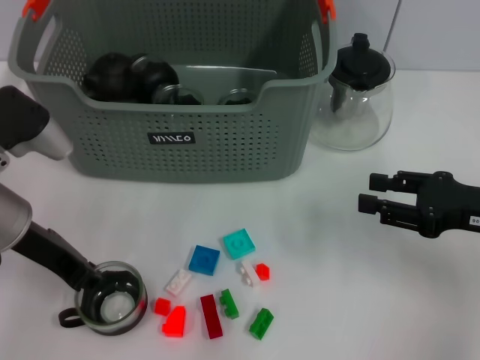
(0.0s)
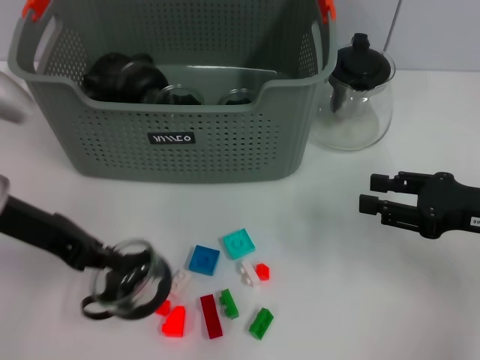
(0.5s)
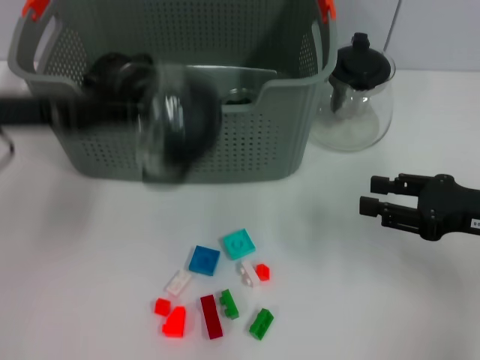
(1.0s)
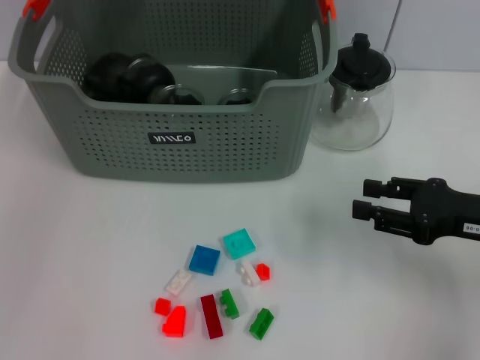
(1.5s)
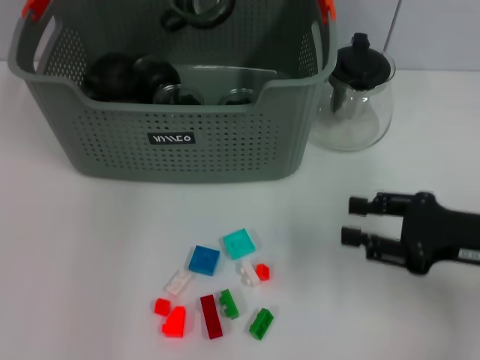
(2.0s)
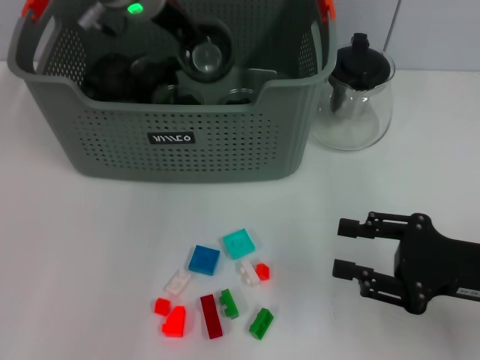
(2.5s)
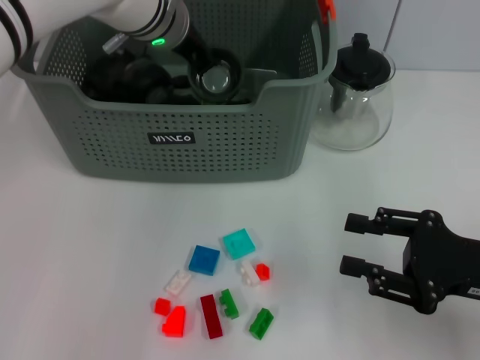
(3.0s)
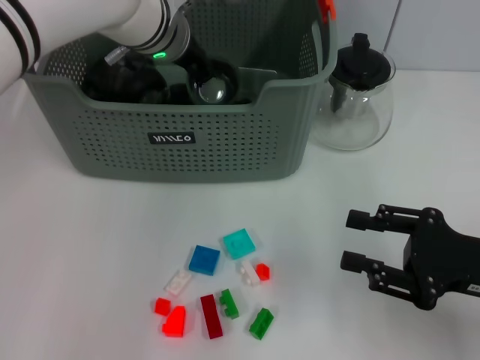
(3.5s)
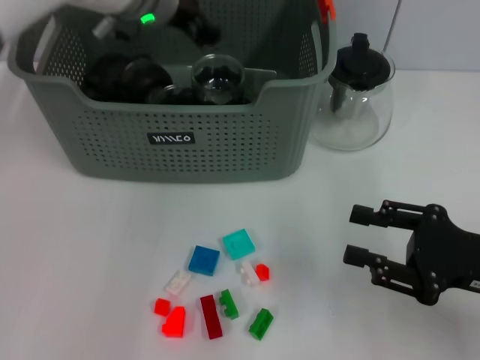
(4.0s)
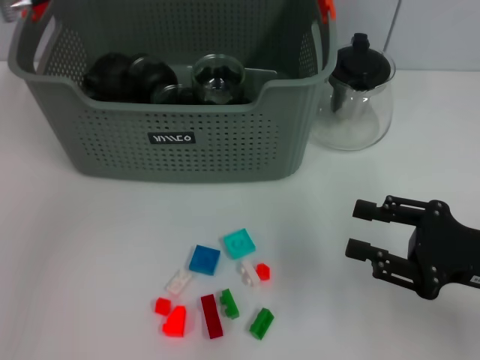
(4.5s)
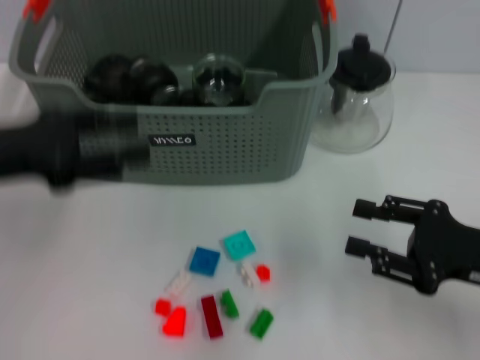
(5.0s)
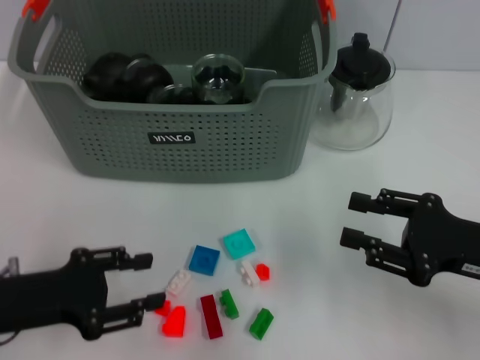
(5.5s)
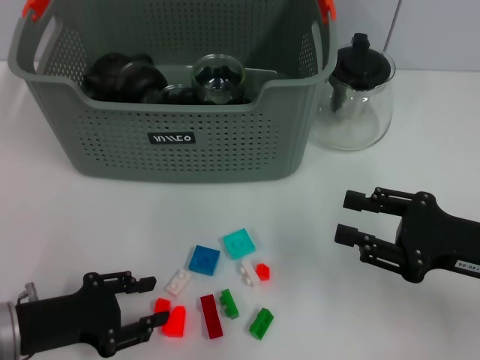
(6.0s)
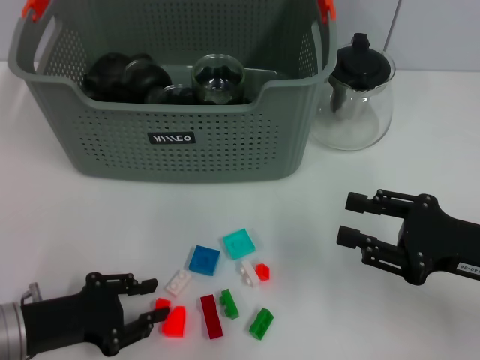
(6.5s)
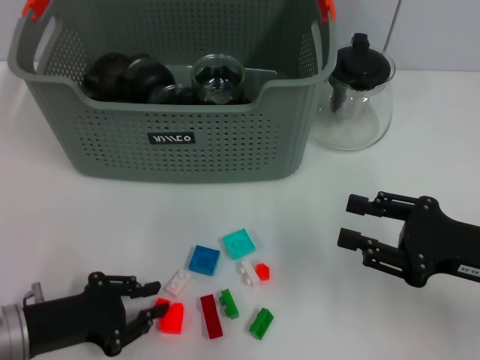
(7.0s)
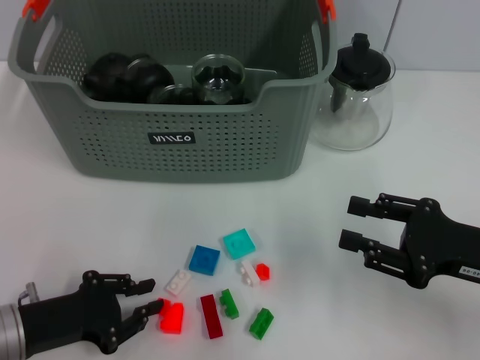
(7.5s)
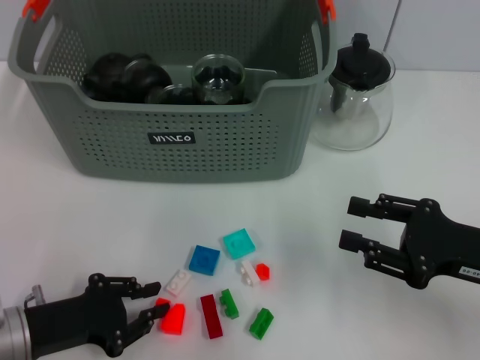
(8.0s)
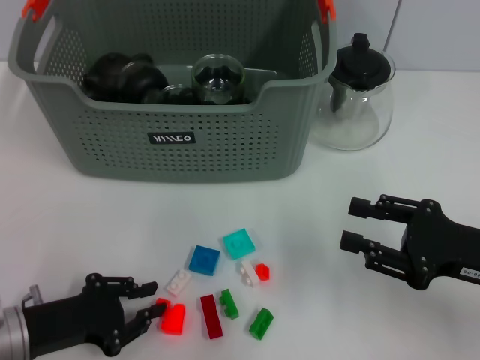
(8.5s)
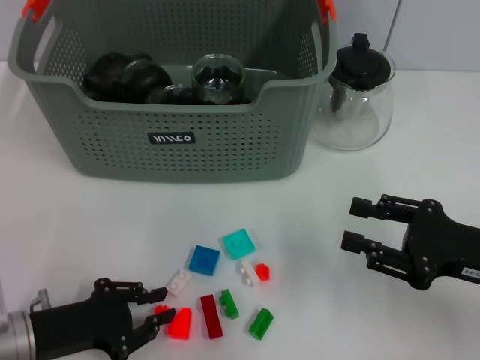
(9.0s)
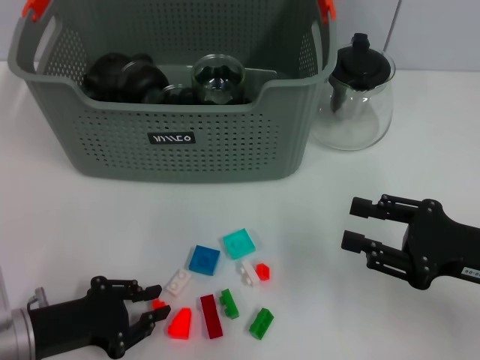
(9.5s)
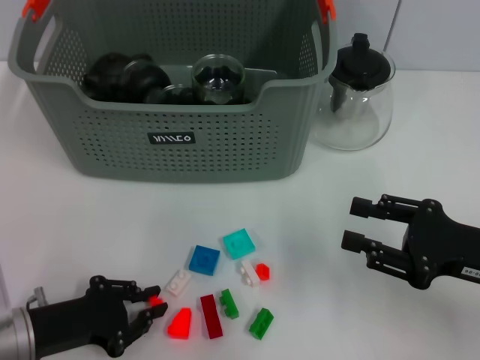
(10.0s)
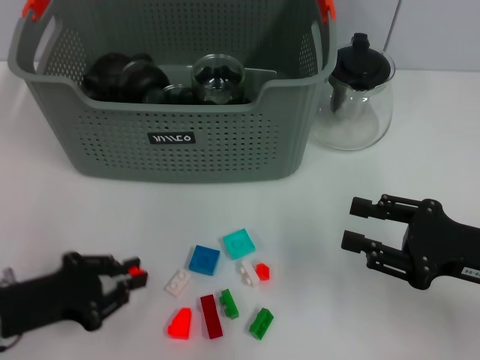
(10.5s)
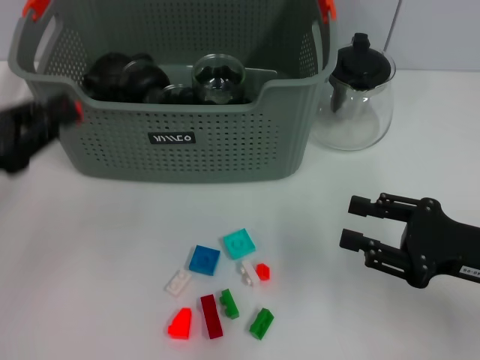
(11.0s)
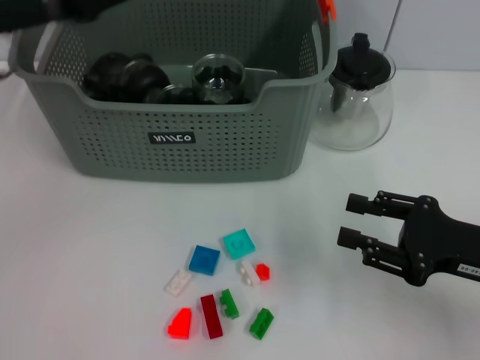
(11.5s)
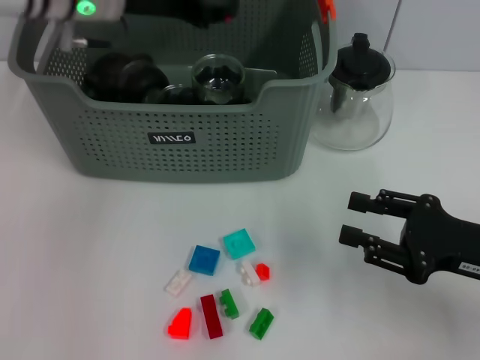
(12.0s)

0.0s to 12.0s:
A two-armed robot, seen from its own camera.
Task of the whole recording: pick up the teacup on the table and place it into the storage bin, pick up the block on the table and place it into the storage bin.
Step, 0.5s to 4.0s: Place the cup in the storage box with left gripper.
Step, 4.5s to 9.5s: Grasp the orange block with left gripper.
0.0s to 2.0s: The left gripper heads forward, upward and to the right, covering about 25 cm, and closes.
2.0s to 4.0s: The left gripper shifts roughly 10 cm downward and to the right, and opens up.
4.0s to 6.0s: The left gripper shifts roughly 35 cm backward, downward and to the left.
6.0s to 8.0s: The left gripper closes its fingers.
8.0s to 10.0s: Neither gripper changes place.
10.0s to 12.0s: The left gripper is displaced forward and upward by roughly 30 cm.

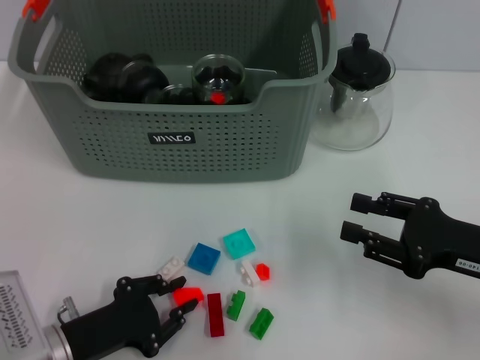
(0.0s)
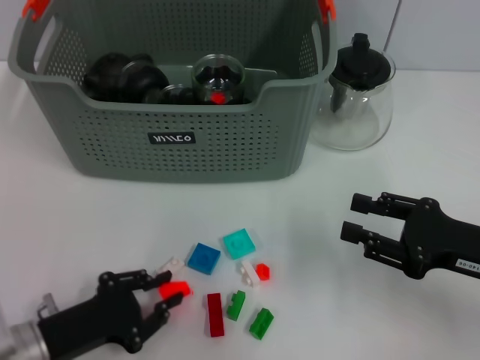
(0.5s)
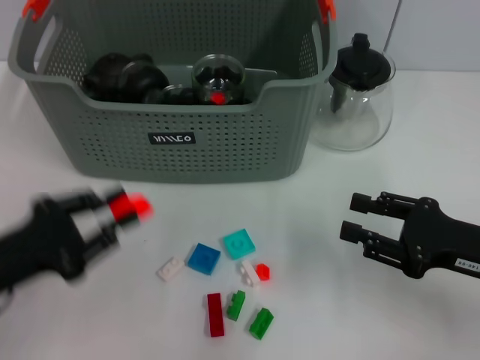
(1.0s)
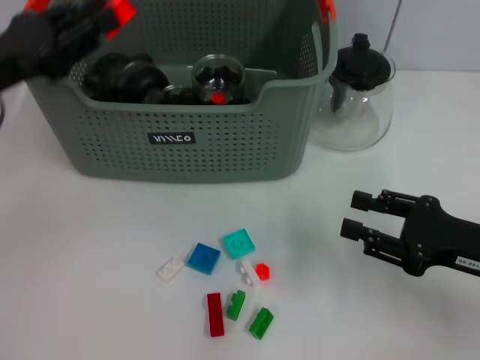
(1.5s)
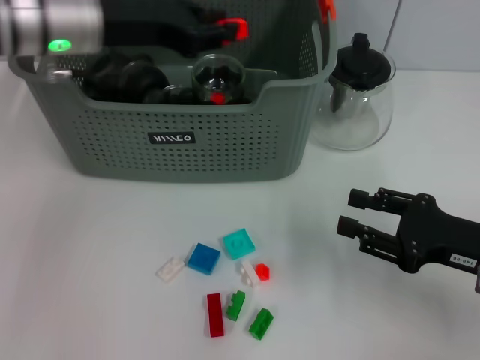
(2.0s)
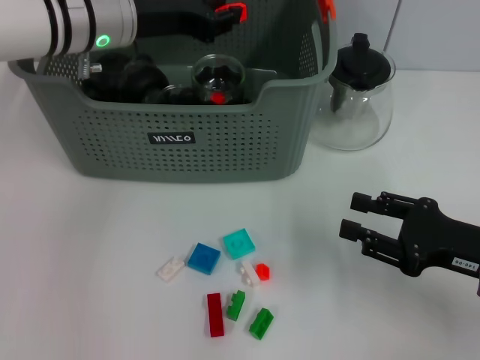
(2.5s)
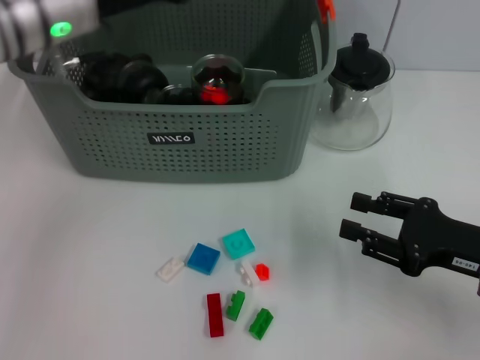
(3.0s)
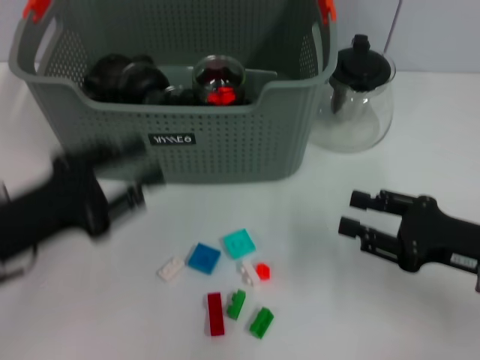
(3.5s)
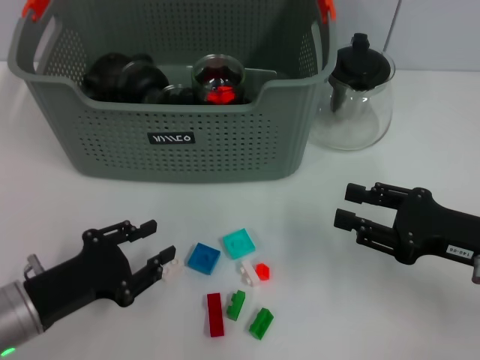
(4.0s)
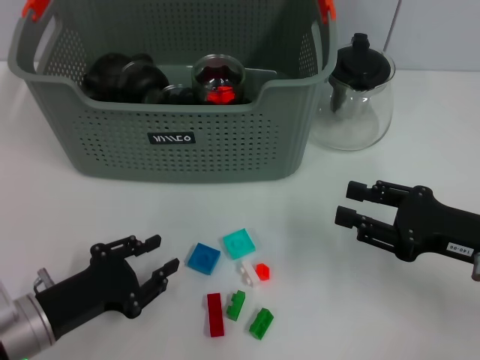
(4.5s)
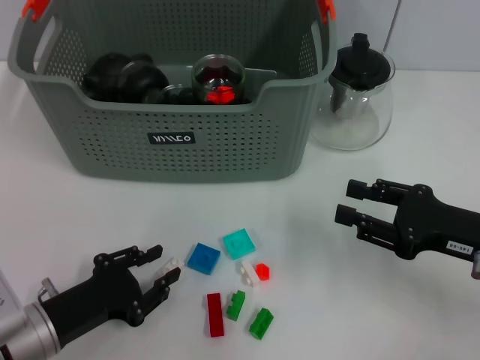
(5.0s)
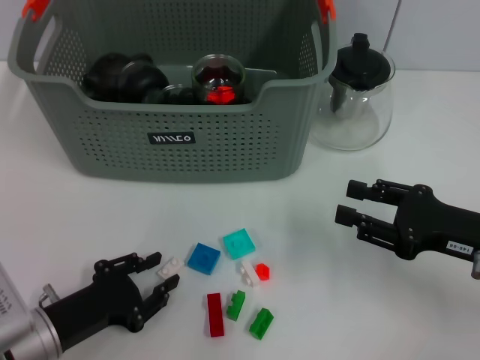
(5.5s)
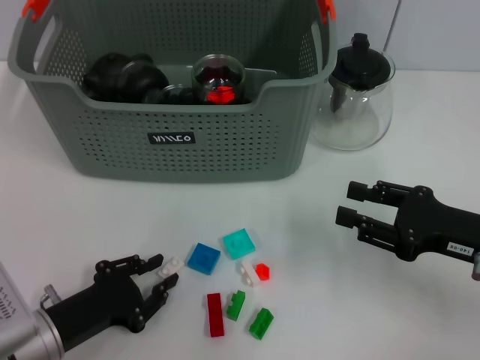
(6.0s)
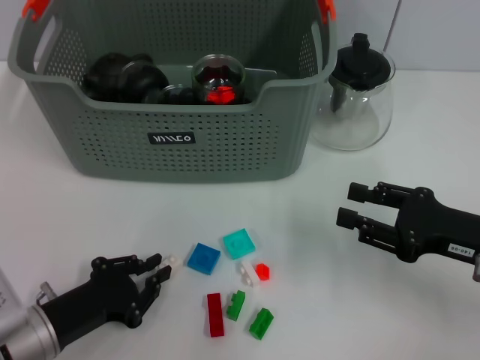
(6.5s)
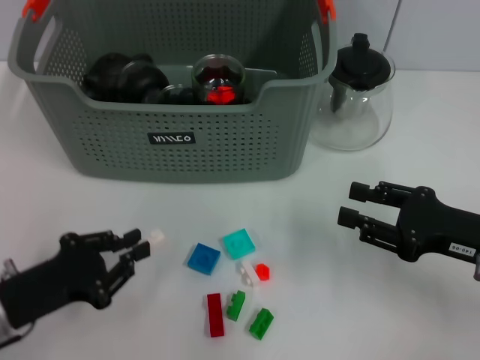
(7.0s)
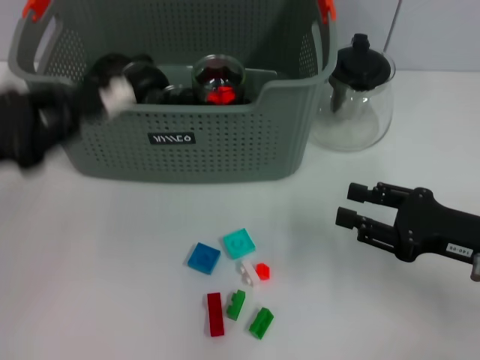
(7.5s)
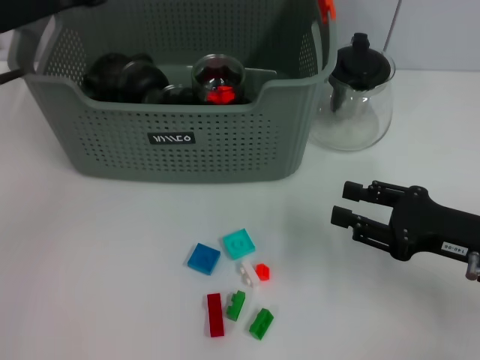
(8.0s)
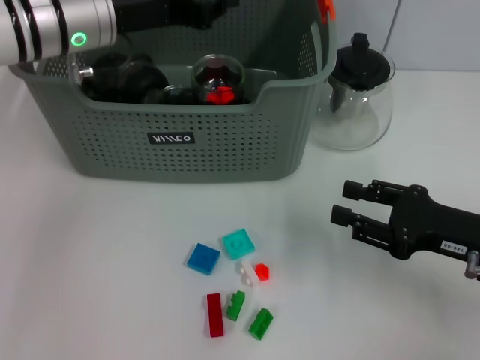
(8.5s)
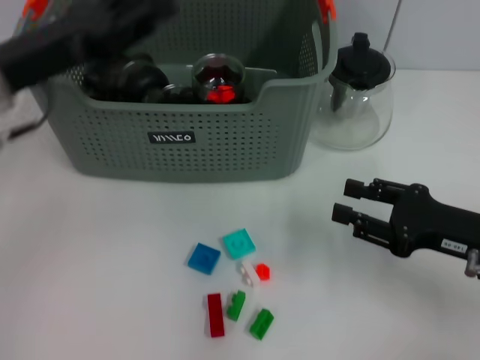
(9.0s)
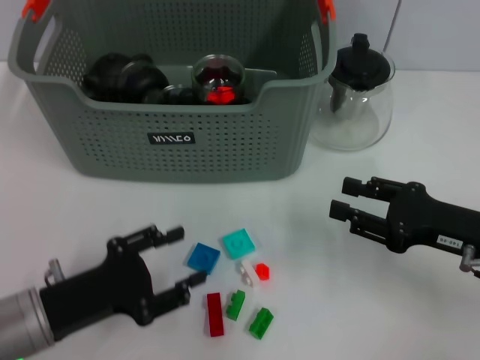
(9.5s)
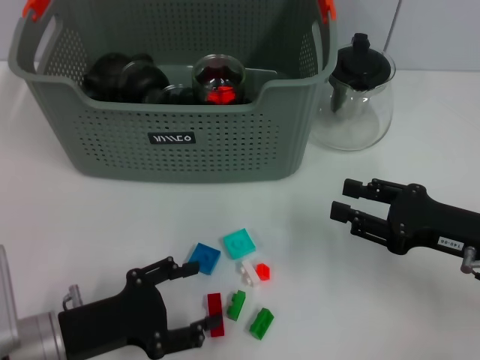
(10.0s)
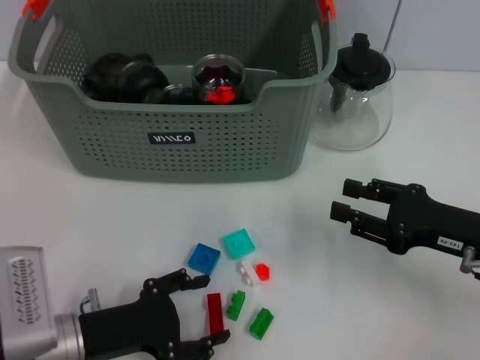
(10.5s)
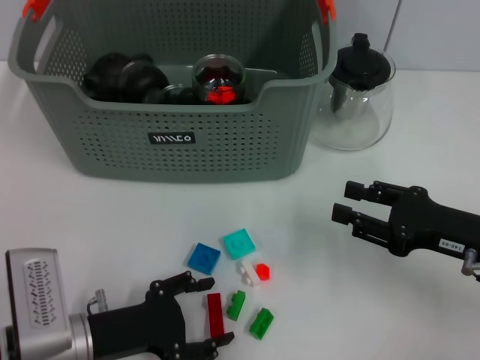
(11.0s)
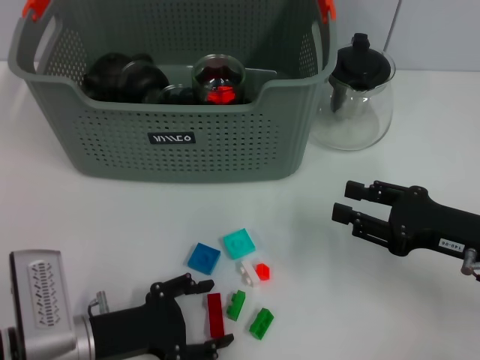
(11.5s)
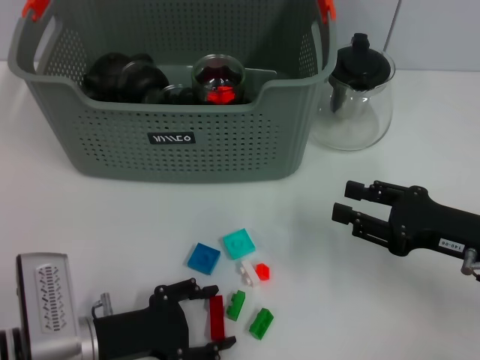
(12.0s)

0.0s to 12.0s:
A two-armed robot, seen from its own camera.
Task of the whole recording: pick up the teacup on the table and place it into the storage bin, pick up the block on the table and place it into the storage bin.
Step, 0.5s to 3.0s: Place the orange block in the storage box with left gripper.
Step, 3.5s to 6.0s: Grasp the white block with left gripper.
Step, 6.5s to 9.0s: Place the white block in the storage box with left gripper.
0.0s to 2.0s: The left gripper heads forward and upward, covering about 30 cm.
2.0s to 4.0s: The left gripper travels backward and downward by approximately 30 cm.
4.0s to 6.0s: The grippers stay close to where they were, moving slightly.
6.0s to 8.0s: The left gripper heads upward and forward, covering roughly 30 cm.
8.0s to 10.0s: The left gripper travels downward and backward by approximately 25 cm, and opens up.
10.0s to 12.0s: The grippers move only a little.

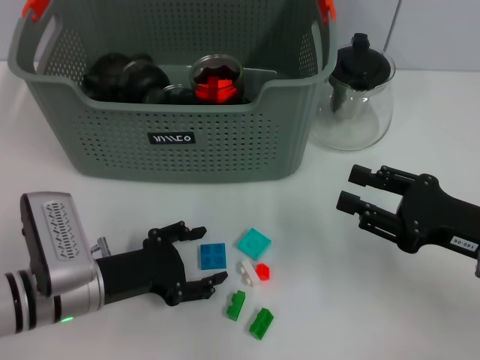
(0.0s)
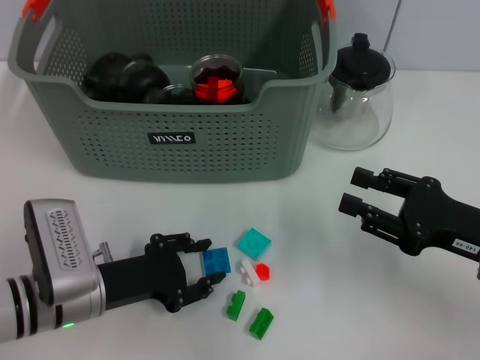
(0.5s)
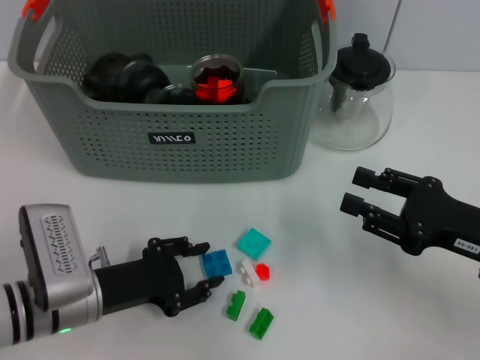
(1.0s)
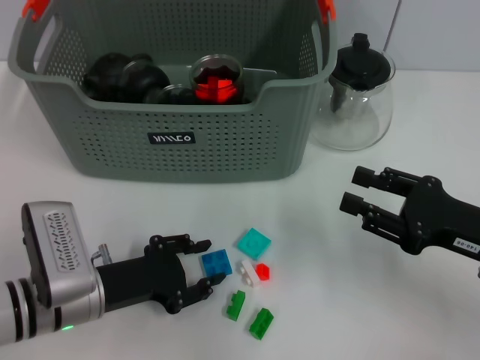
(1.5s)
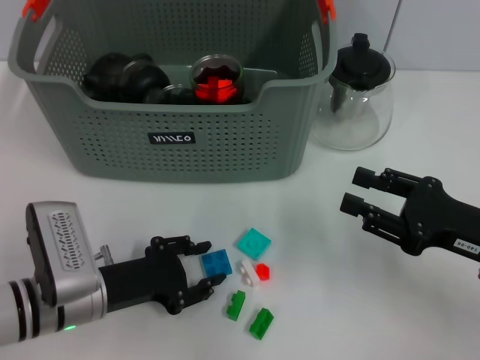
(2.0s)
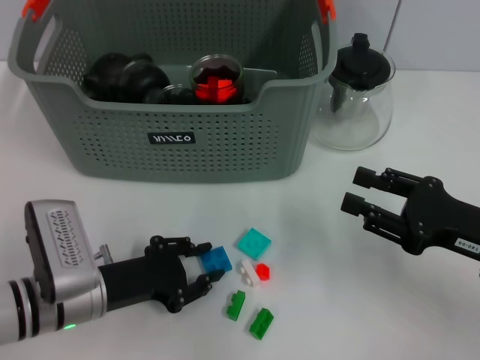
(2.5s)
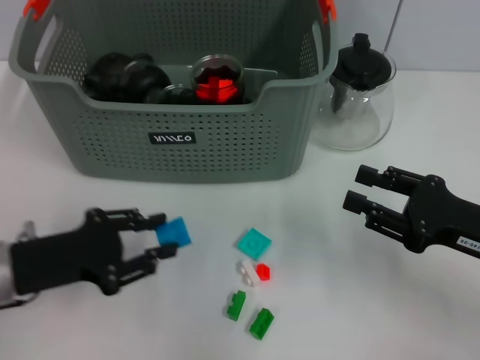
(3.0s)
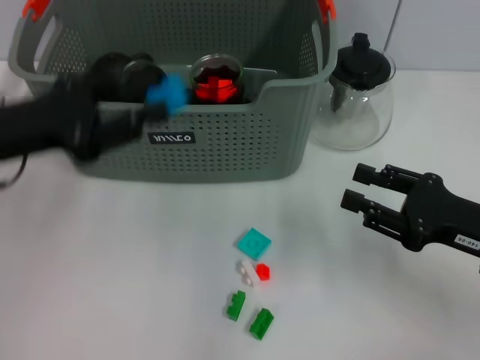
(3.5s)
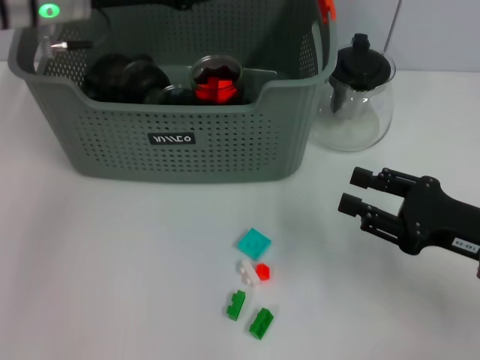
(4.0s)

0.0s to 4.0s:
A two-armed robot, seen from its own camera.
Task of the whole recording: pick up the teacup on the table and place it into the storage bin, pick up the block on the table and place it into the storage bin.
Step, 0.0s to 2.5s: Grasp the dark blue block with left gripper.
0.0s to 2.0s: The left gripper closes its fingers.
2.0s to 4.0s: The left gripper goes roughly 30 cm upward and forward.
